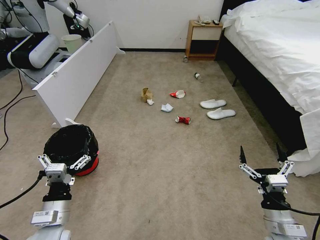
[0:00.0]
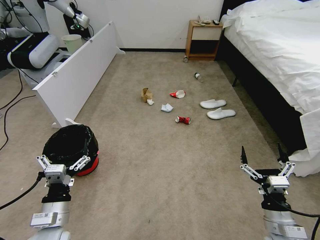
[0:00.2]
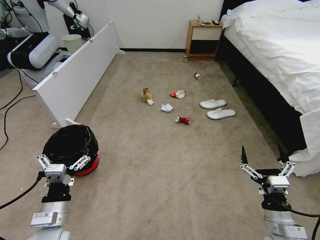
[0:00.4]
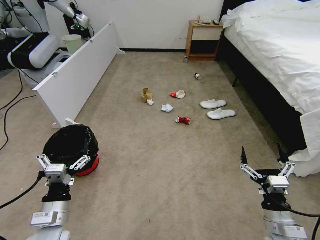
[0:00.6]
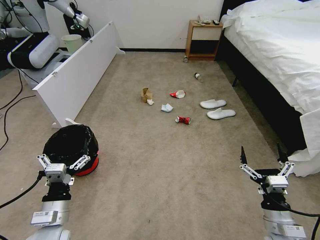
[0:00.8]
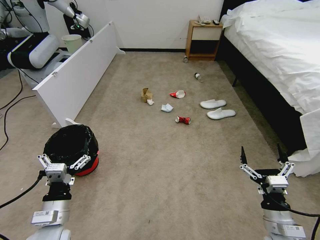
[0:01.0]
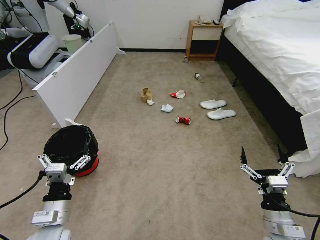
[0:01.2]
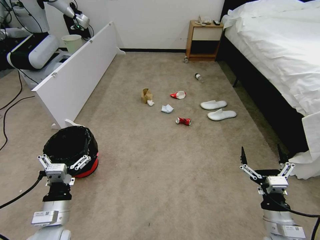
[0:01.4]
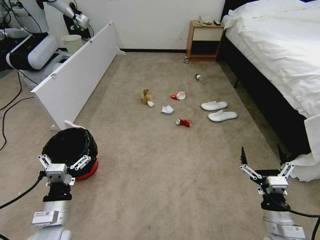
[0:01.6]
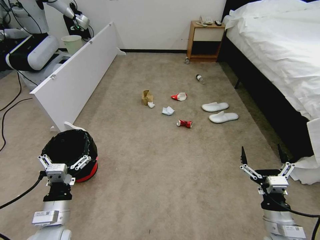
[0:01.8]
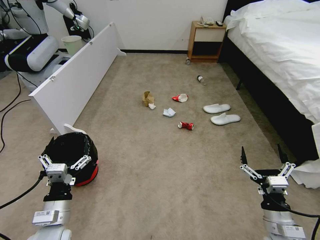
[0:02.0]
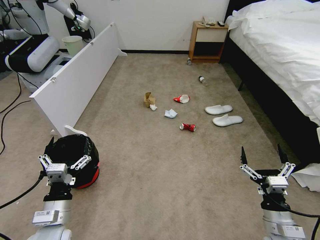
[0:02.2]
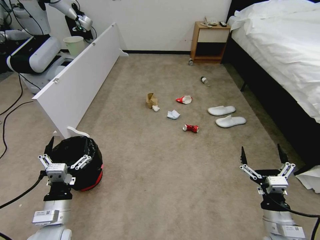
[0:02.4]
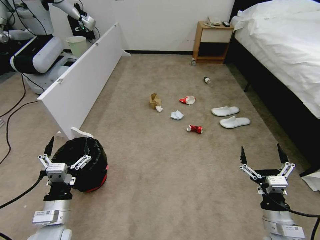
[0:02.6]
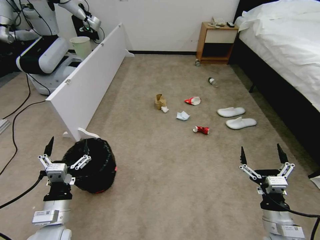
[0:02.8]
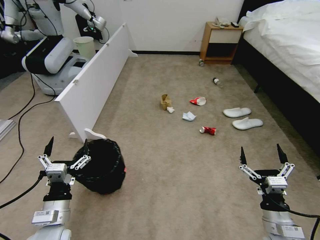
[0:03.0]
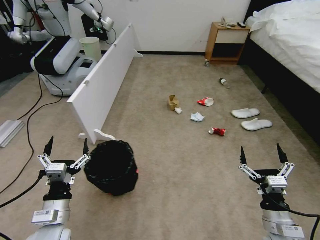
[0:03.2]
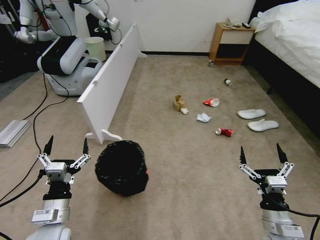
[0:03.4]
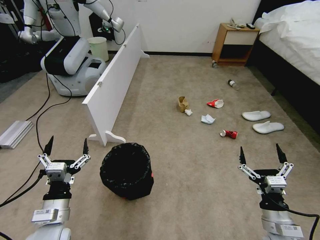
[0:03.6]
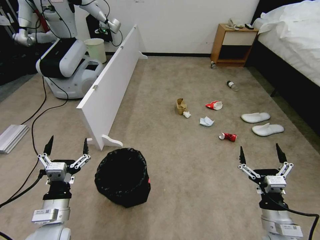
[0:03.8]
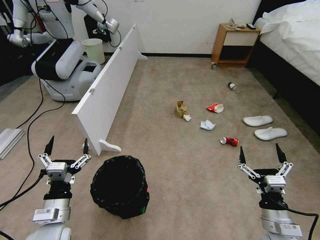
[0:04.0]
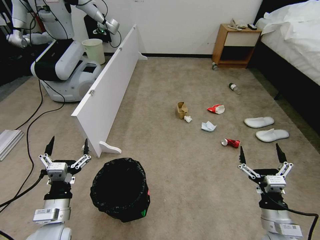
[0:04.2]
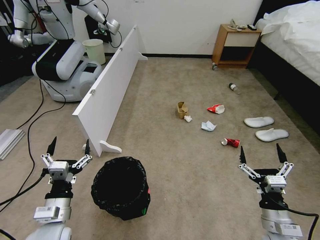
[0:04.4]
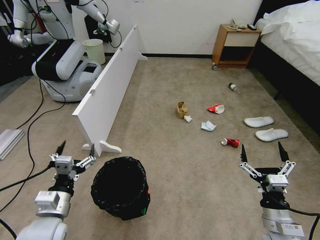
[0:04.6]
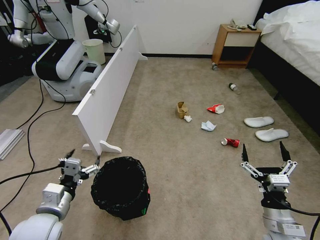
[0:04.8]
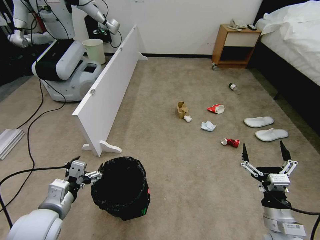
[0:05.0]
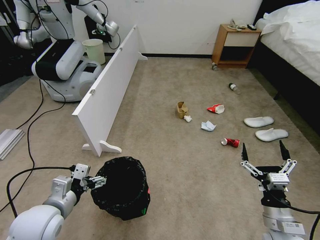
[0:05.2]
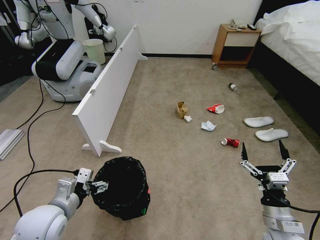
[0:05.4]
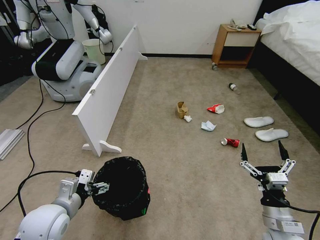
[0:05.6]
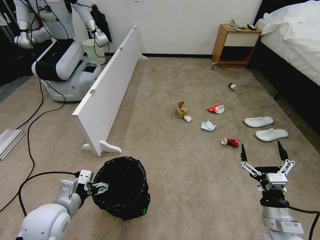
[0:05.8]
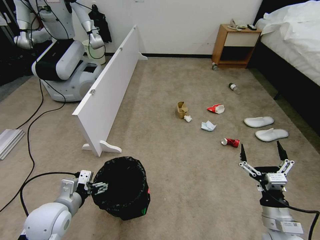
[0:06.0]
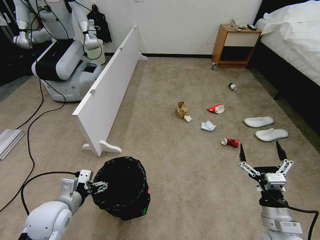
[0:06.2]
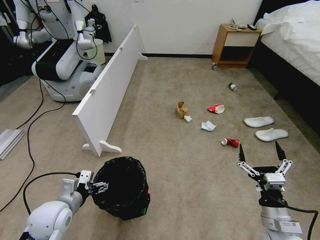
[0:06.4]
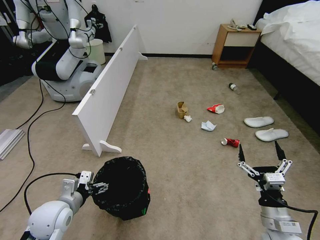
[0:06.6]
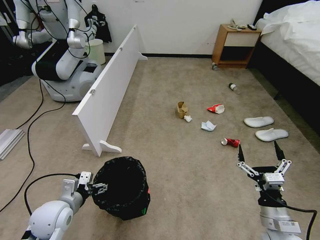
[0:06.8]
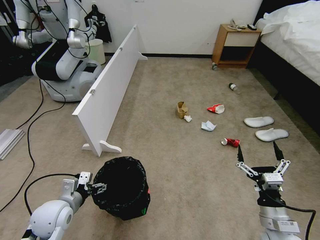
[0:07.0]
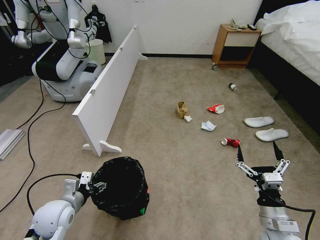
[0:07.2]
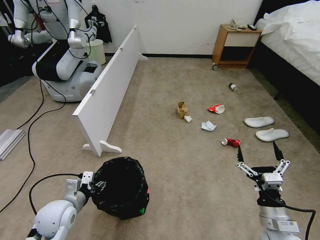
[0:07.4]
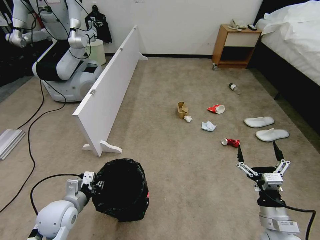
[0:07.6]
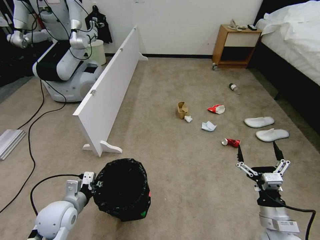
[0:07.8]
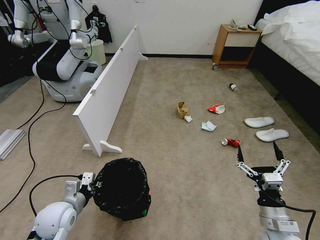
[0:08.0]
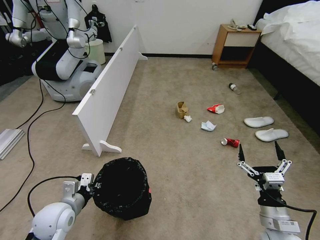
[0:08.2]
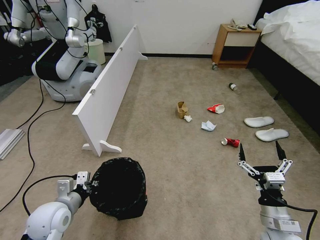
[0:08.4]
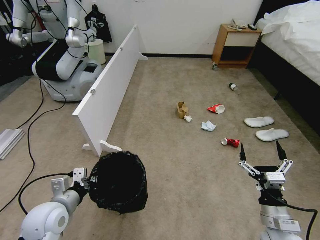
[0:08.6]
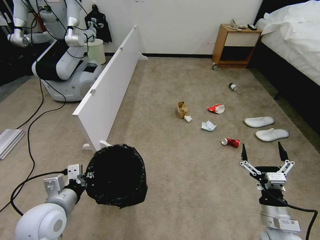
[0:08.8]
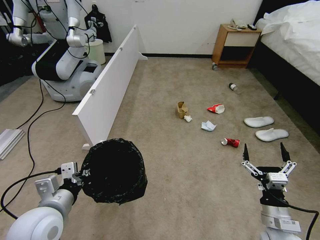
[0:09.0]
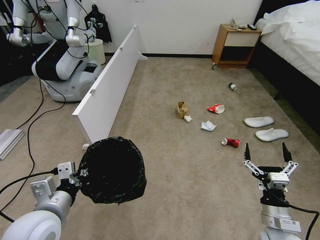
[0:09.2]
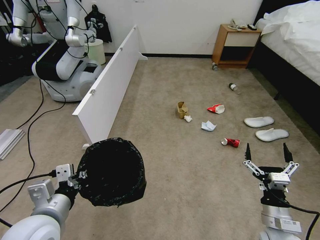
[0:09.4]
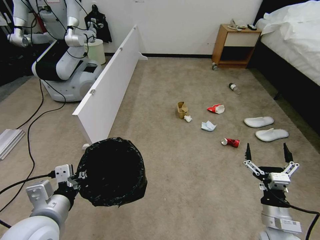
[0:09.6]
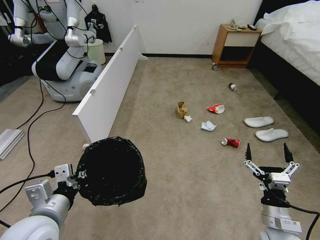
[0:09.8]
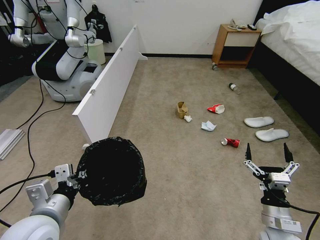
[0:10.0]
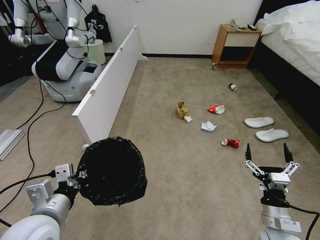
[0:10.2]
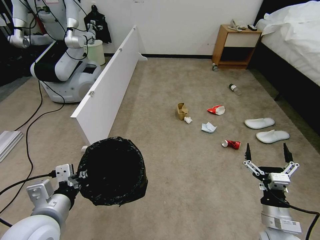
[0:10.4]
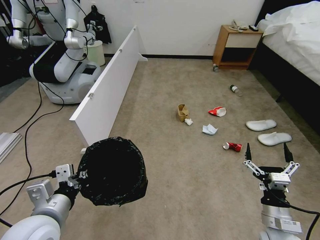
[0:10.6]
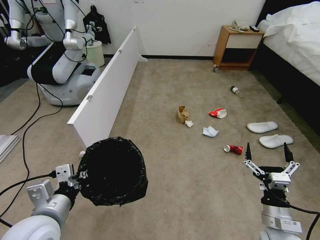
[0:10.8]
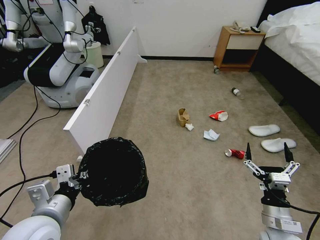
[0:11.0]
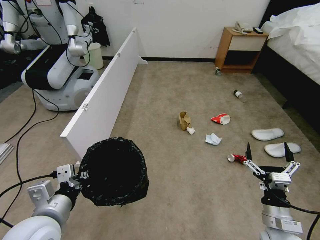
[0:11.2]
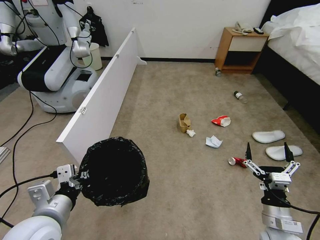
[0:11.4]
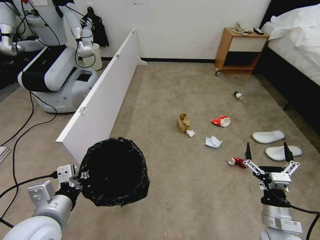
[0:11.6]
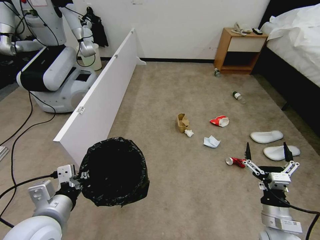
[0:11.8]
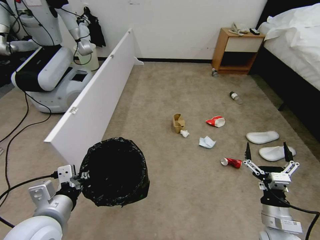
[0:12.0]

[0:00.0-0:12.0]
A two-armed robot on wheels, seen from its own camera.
Task of the whole recording: Pick up the trash bin, then pick up the garbage from the floor and place it into the trash bin.
0:06.0 to 0:07.6: The left gripper closes its fingers.
0:07.6 to 0:09.0: The left gripper goes some 10 cm upward and backward.
0:09.0 to 0:10.4: The grippers move only a little.

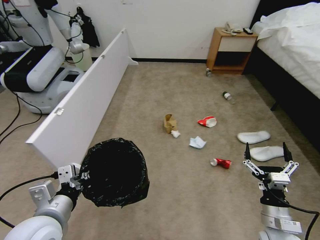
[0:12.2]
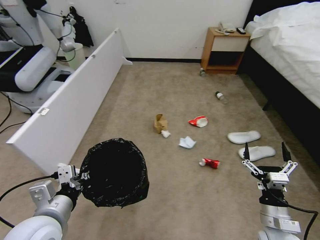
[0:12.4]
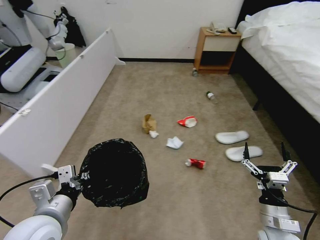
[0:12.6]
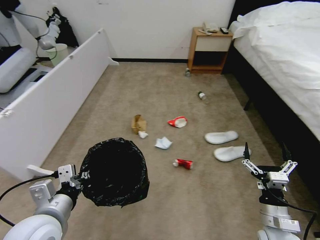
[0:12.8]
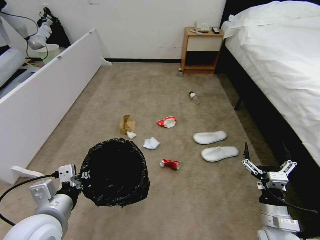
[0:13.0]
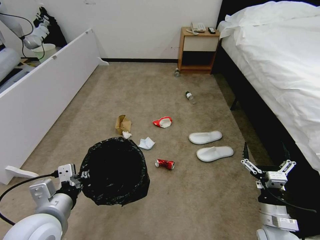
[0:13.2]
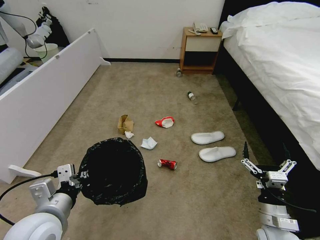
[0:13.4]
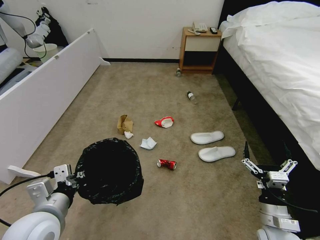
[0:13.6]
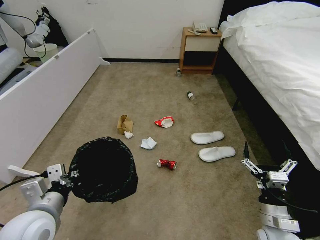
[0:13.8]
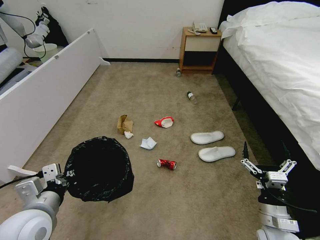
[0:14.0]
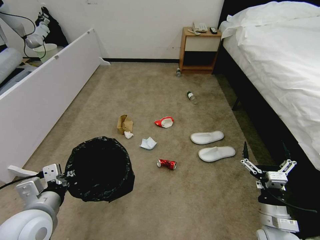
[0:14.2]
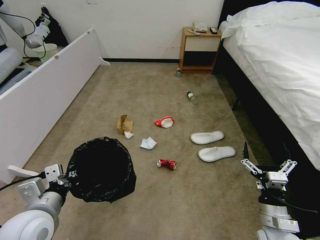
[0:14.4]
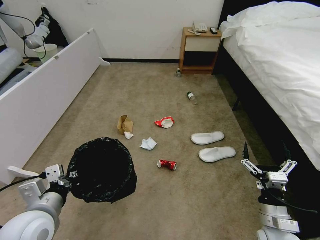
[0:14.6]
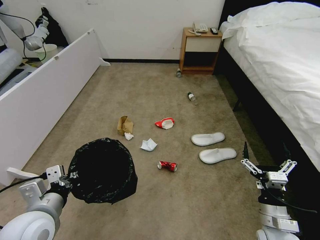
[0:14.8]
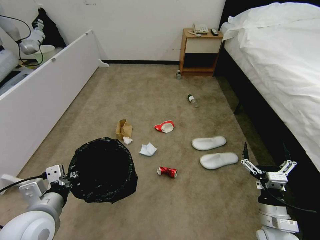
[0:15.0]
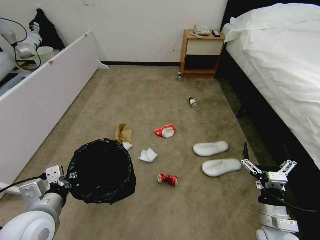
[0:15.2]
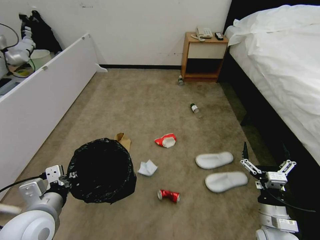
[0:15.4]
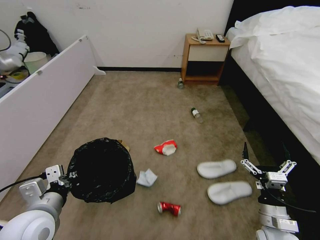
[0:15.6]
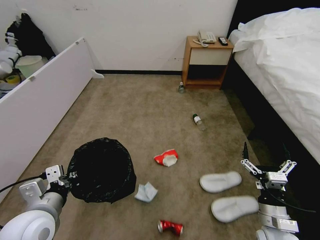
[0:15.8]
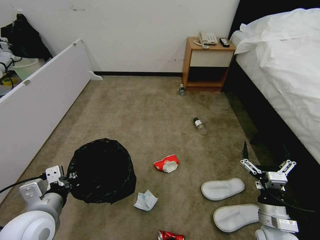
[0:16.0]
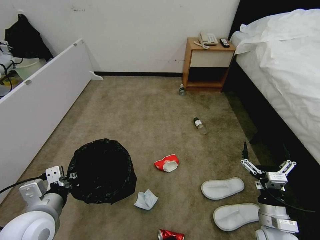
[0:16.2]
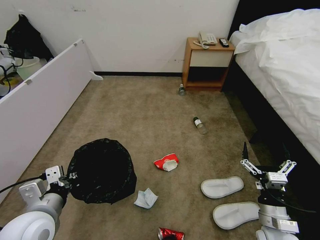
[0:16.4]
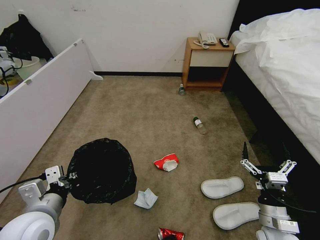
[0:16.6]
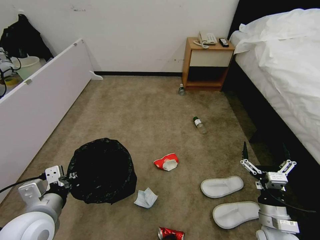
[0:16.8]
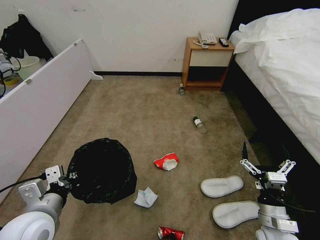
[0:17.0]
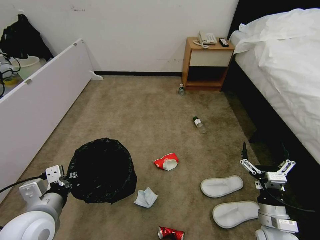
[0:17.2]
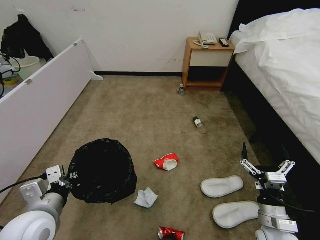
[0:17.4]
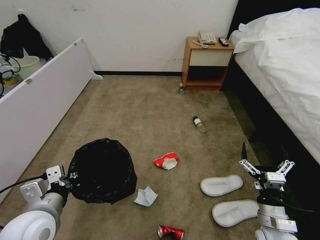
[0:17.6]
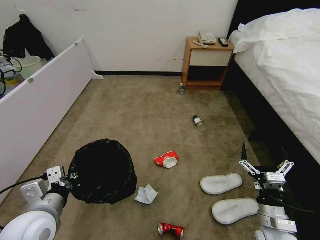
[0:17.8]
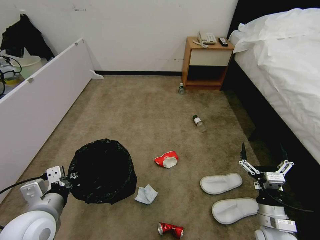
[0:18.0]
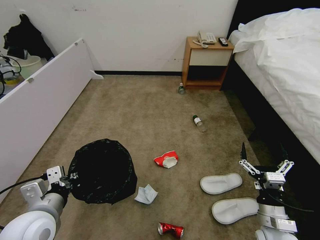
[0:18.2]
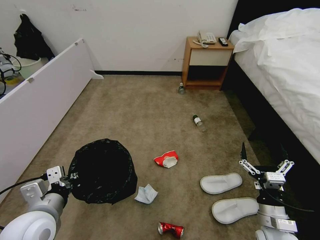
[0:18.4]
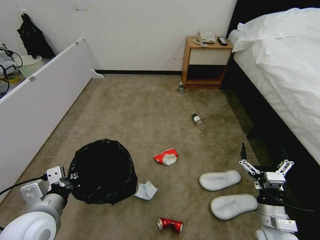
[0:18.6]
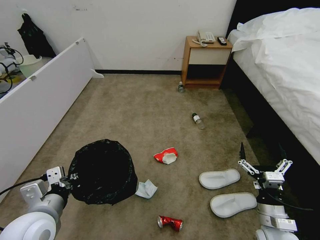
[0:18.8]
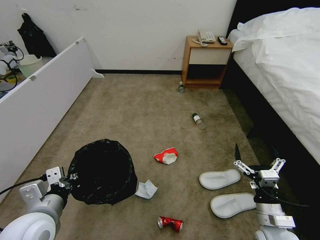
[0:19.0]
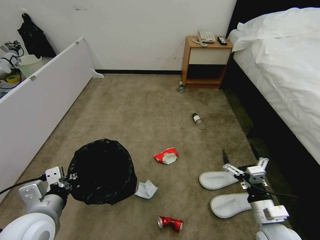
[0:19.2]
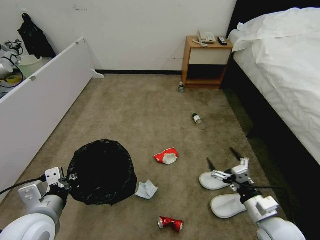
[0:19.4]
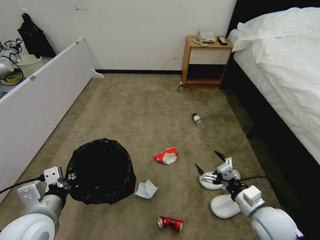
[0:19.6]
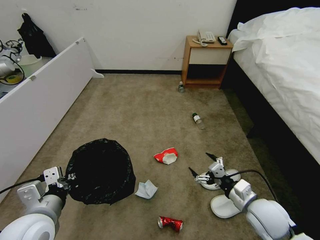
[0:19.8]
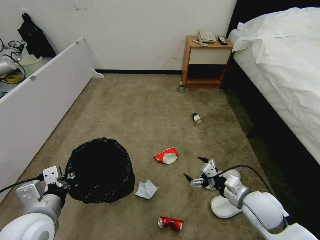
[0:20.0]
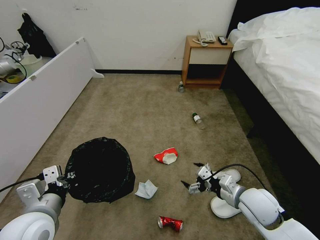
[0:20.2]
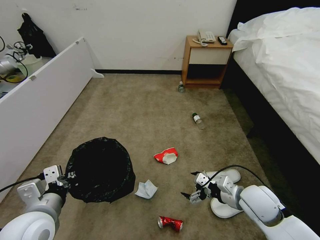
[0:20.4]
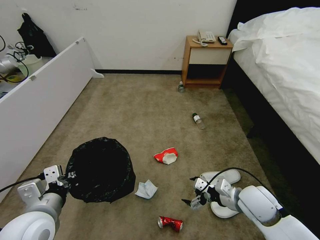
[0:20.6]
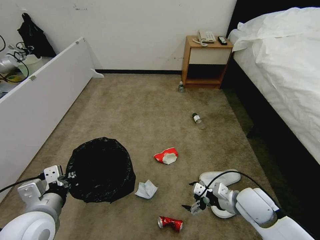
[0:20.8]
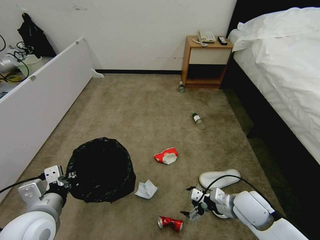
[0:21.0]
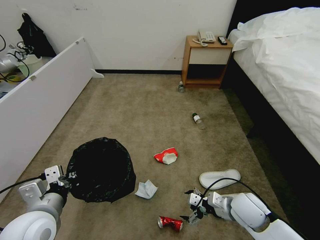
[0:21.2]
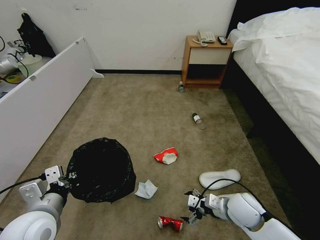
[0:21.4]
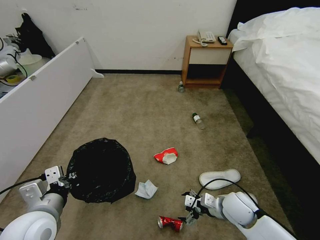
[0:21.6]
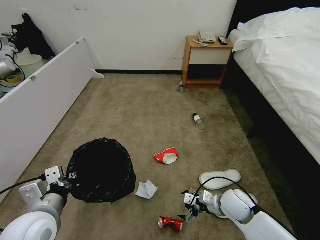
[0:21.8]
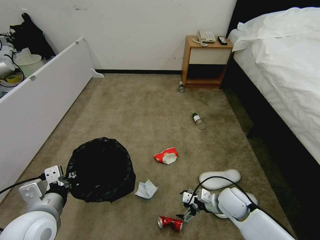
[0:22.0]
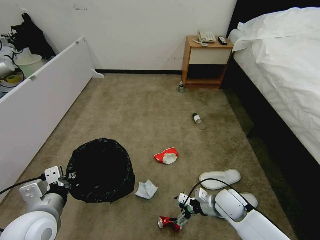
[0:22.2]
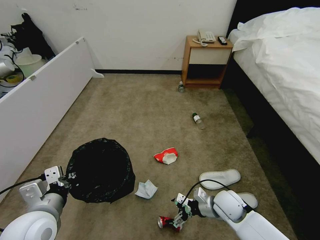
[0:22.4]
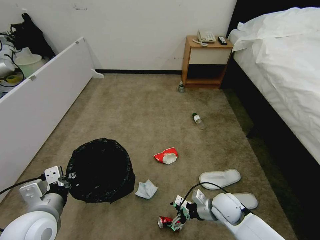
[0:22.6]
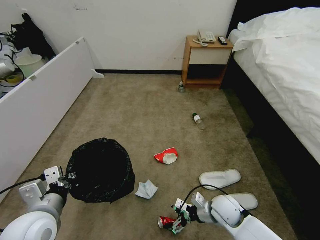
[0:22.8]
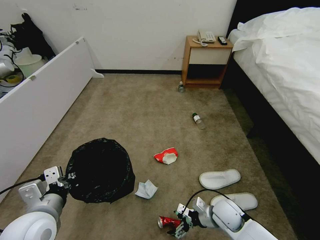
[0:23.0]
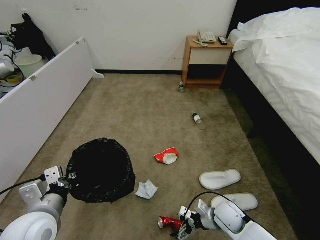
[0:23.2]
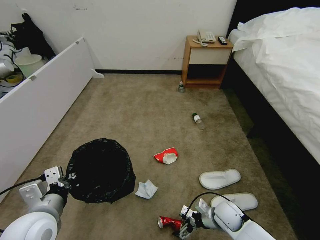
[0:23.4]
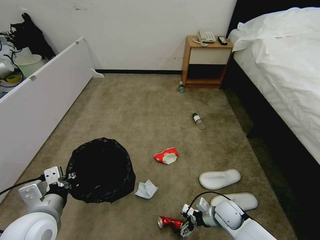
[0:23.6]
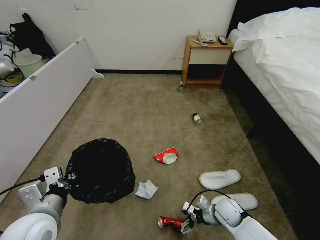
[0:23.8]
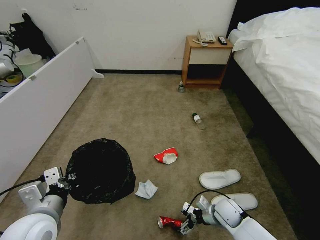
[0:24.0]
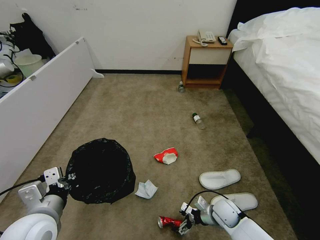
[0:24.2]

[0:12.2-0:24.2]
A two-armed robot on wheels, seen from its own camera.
Task of the whole recording: Pick up the trash bin, then pick up the garbage from the floor and place it into the trash bin.
0:13.8 to 0:15.2: Neither gripper changes place.
0:16.6 to 0:18.2: The two grippers keep their place.
0:18.2 to 0:19.8: The right gripper travels forward by about 5 cm.
0:19.8 to 0:21.2: The right gripper changes place by approximately 5 cm.
0:21.2 to 0:22.6: The right gripper is displaced downward by roughly 5 cm.
0:22.6 to 0:24.2: The right gripper shifts some 5 cm downward.
